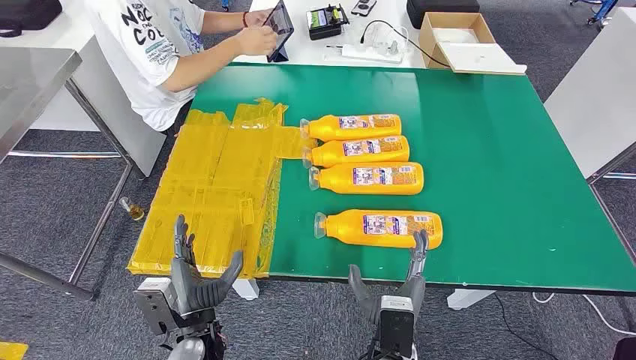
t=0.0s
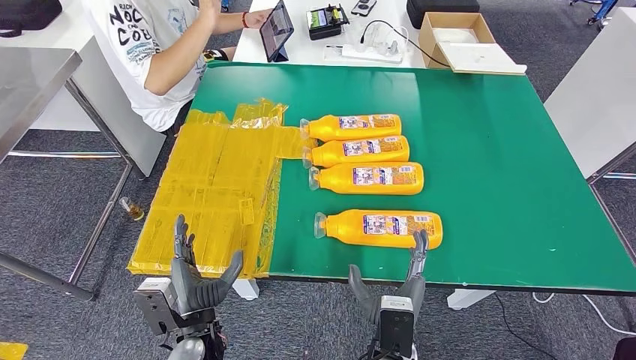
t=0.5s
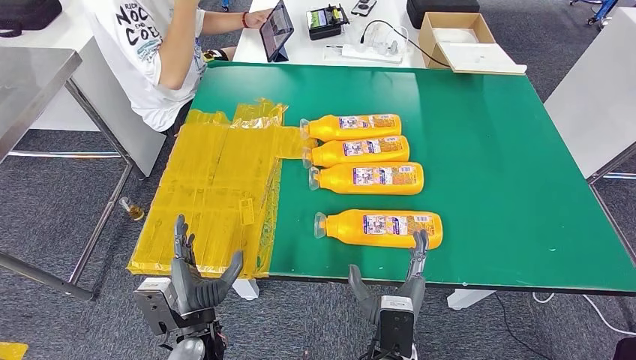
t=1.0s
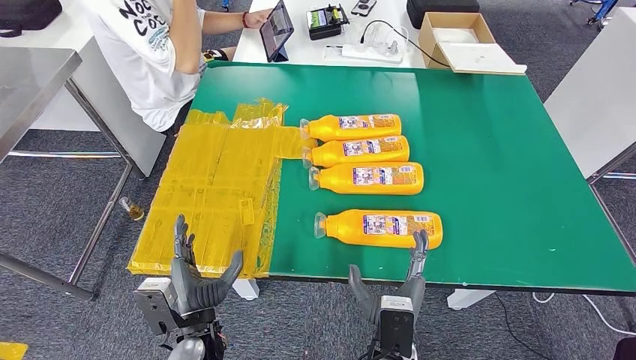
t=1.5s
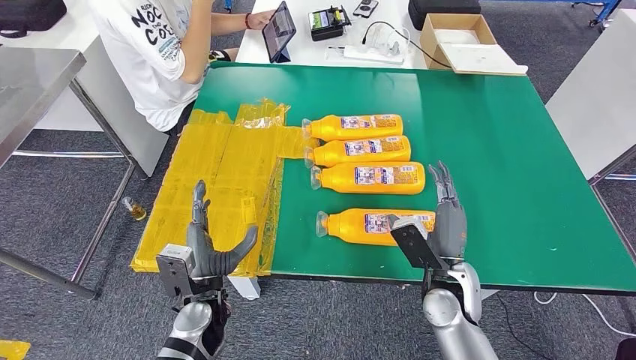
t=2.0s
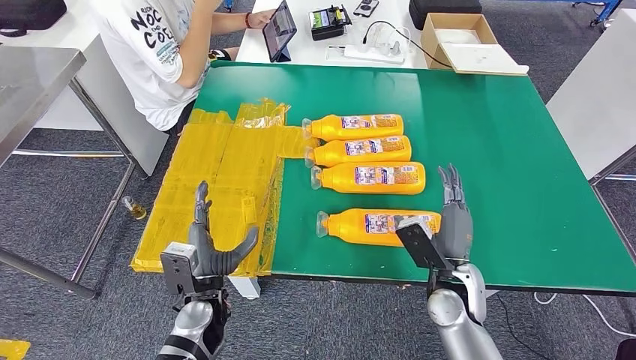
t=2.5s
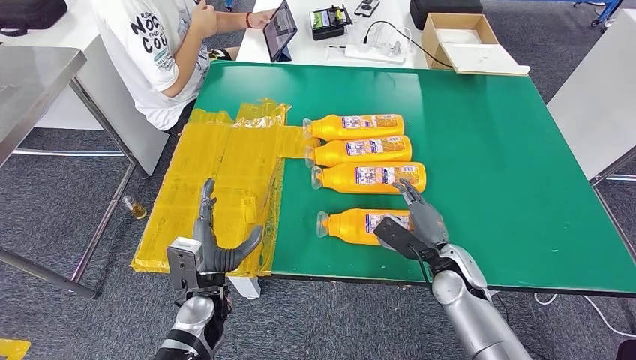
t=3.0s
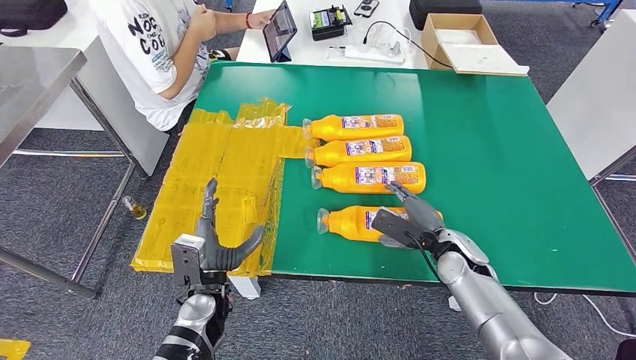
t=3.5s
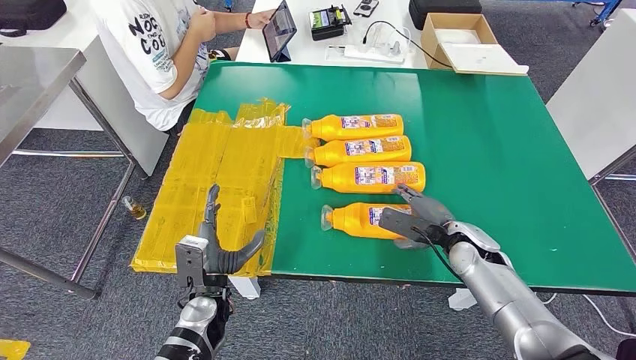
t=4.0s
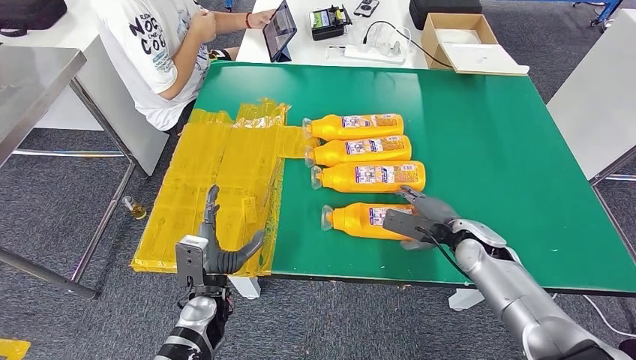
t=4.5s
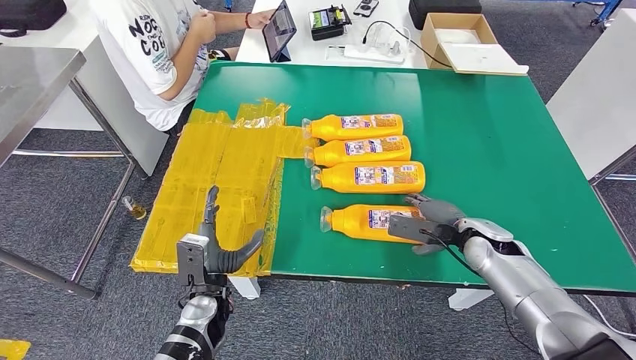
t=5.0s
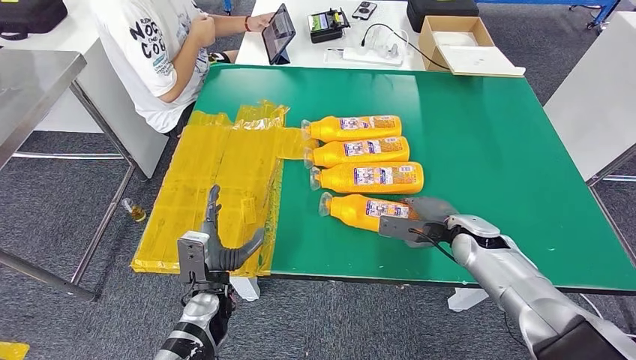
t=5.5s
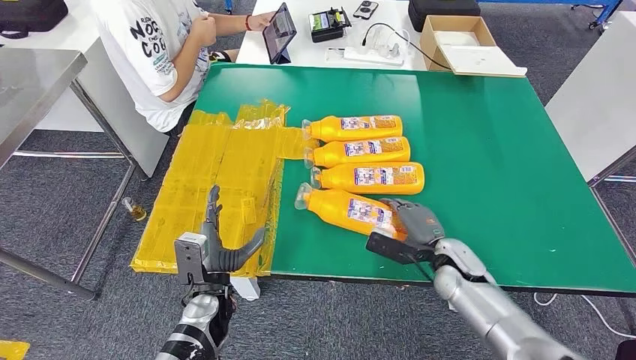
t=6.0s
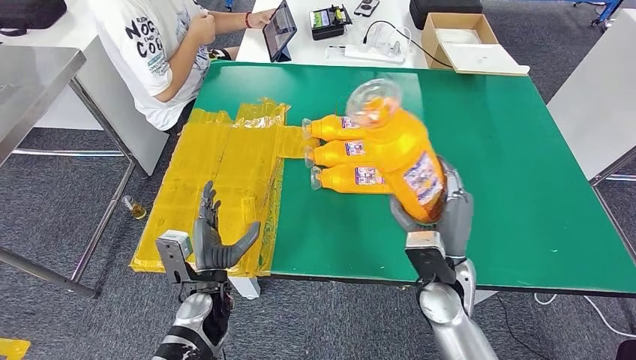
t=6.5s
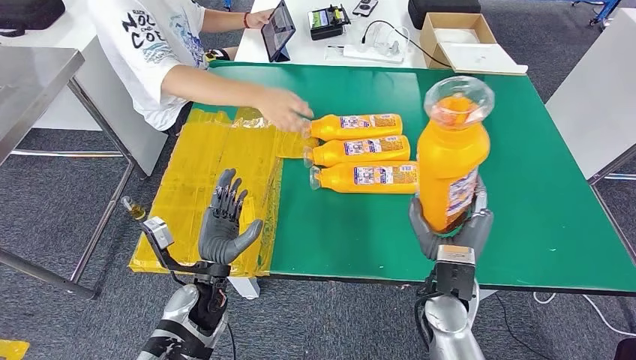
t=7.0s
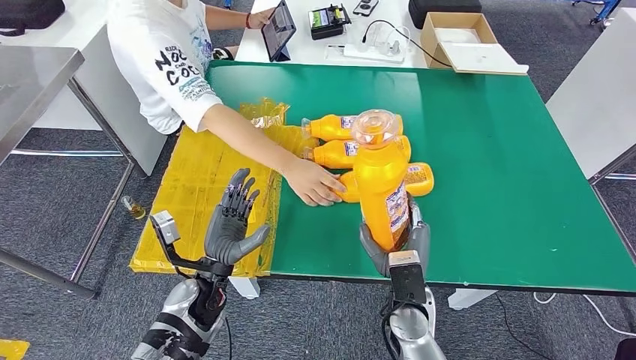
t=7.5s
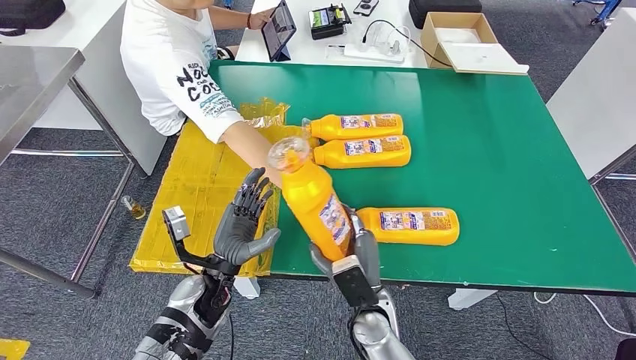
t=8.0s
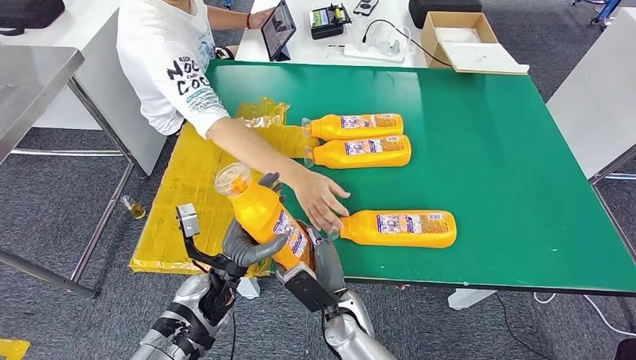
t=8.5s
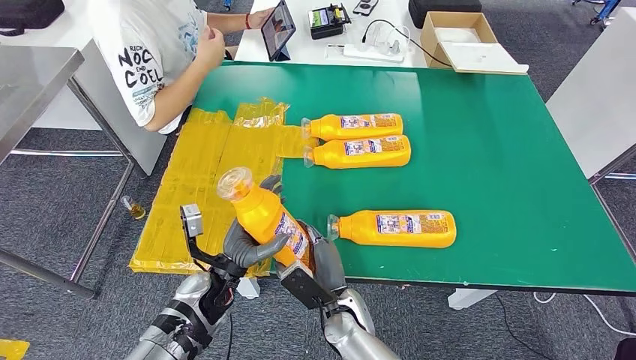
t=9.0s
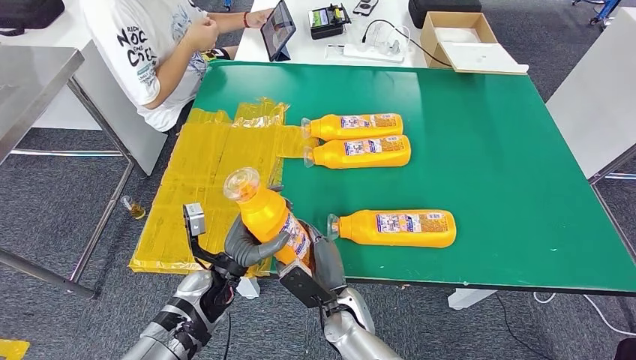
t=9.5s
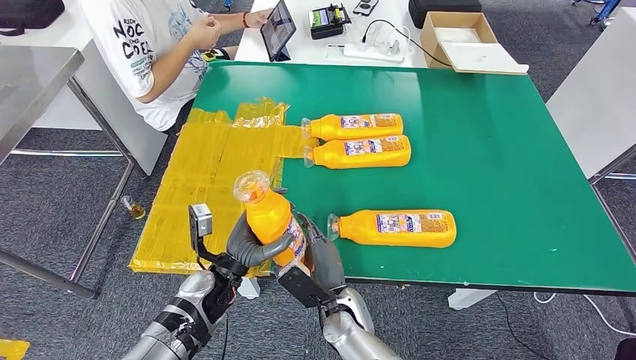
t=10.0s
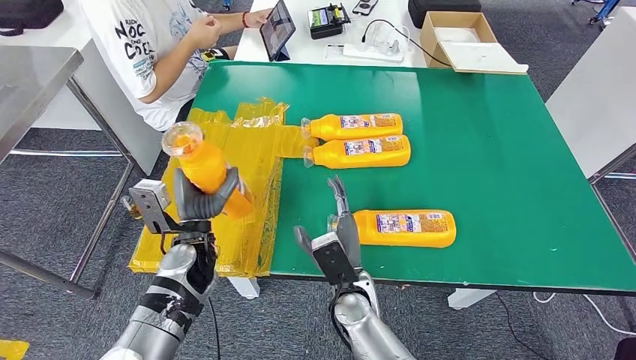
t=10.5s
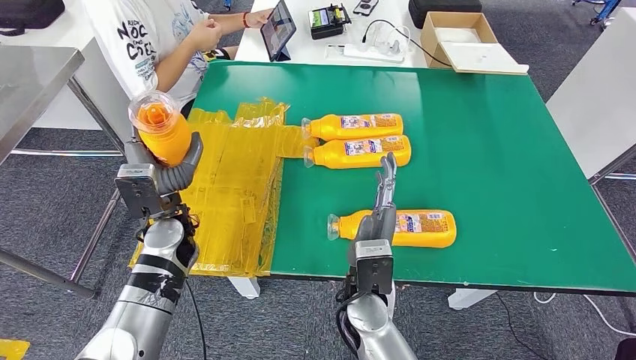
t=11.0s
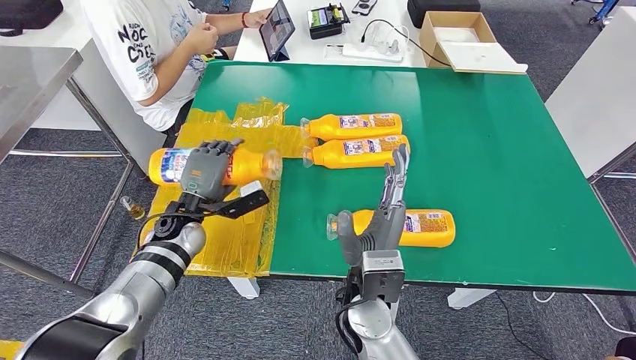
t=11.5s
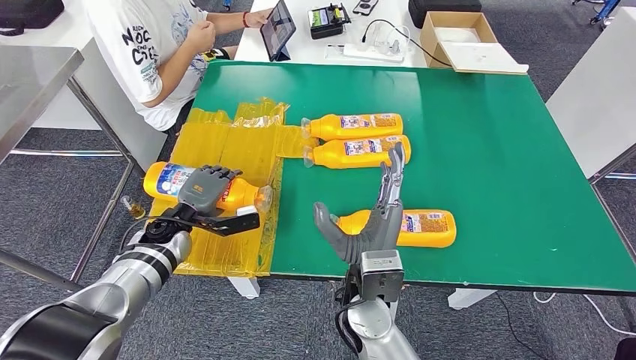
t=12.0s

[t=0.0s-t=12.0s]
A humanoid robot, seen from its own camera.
Step, t=0.0s to t=6.5s: Take the fast-moving consumer goods bottle from the table.
t=2.0s to t=4.0s: The right hand heads forward and to the right, covering approximately 10 cm.
t=4.0s to t=6.0s: The right hand changes place by approximately 5 cm.
t=8.0s to t=10.0s: The right hand ends up some 5 cm from where it was.
t=10.0s to t=12.0s: The left hand shifts approximately 15 cm to the left and forward. Meanwhile the right hand moves upward, some 15 cm.

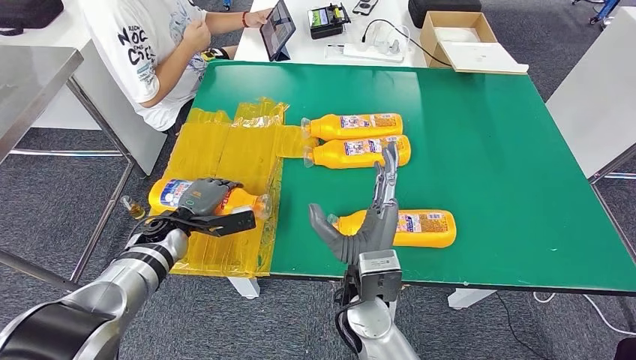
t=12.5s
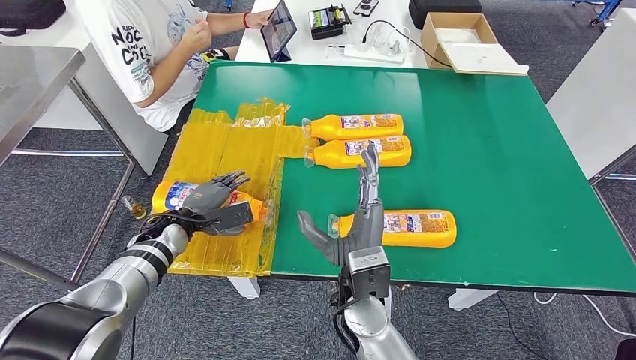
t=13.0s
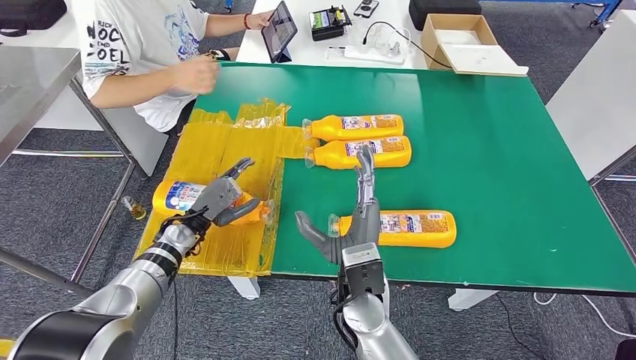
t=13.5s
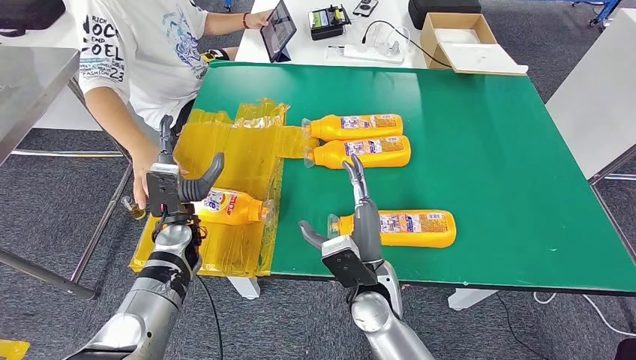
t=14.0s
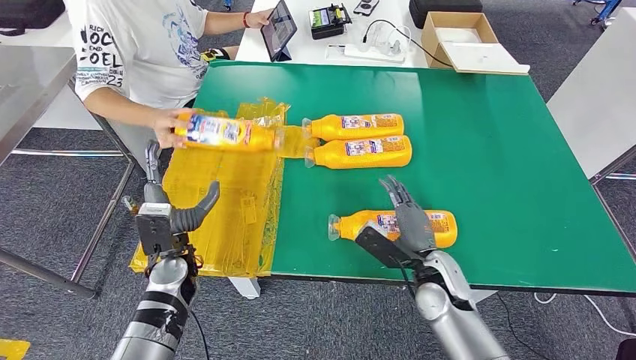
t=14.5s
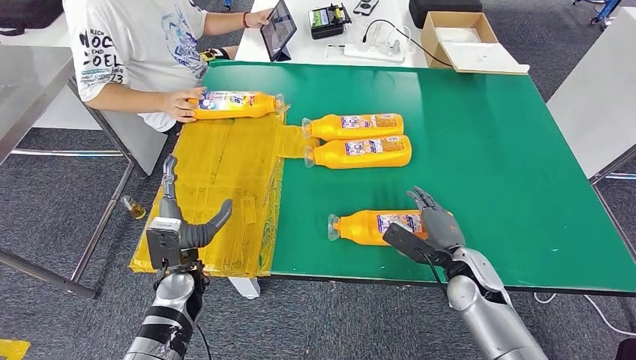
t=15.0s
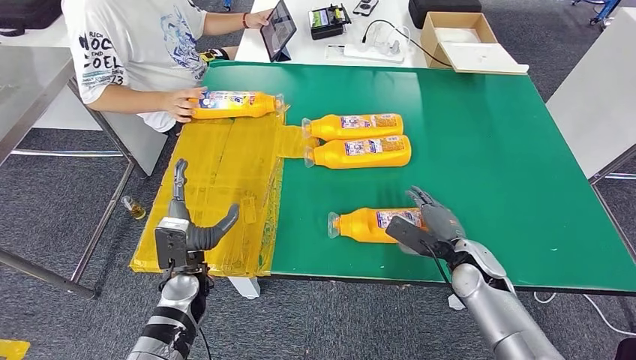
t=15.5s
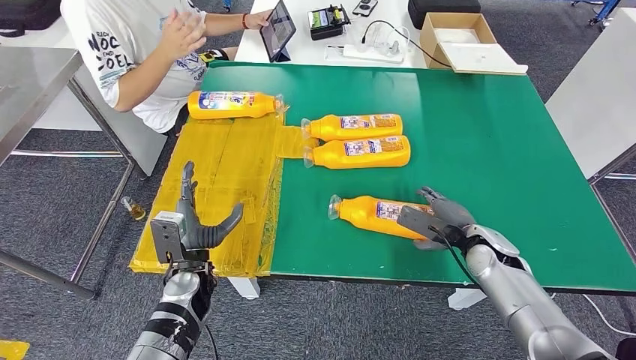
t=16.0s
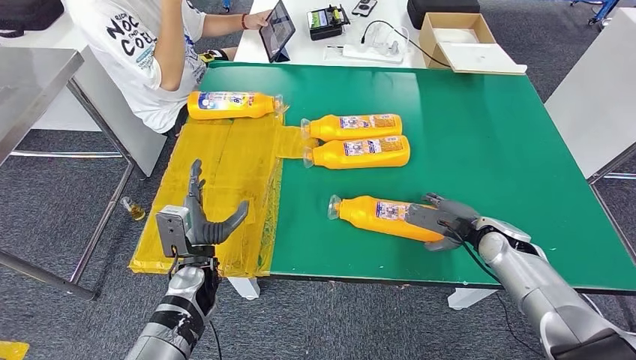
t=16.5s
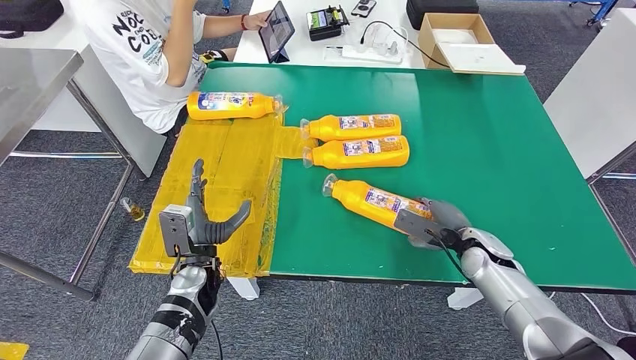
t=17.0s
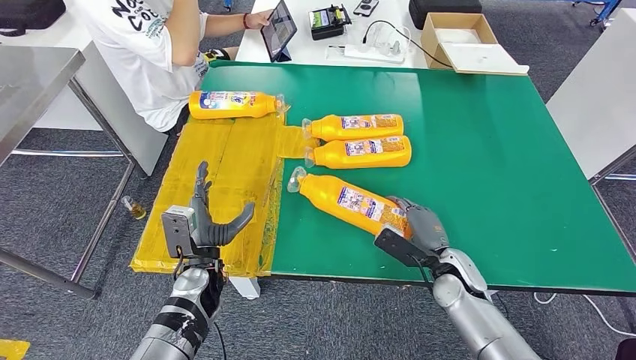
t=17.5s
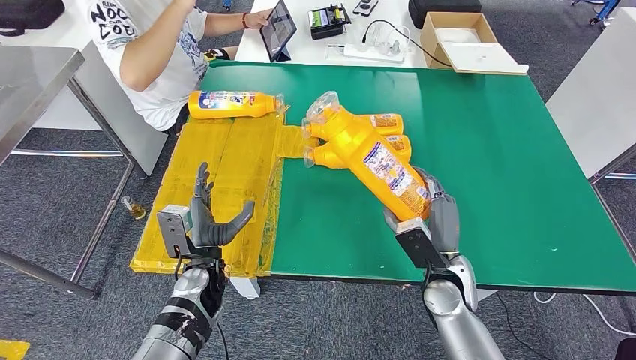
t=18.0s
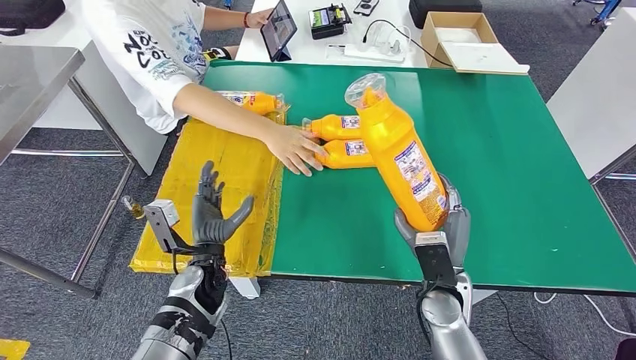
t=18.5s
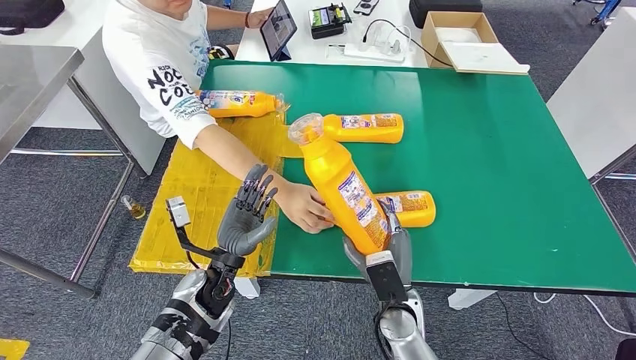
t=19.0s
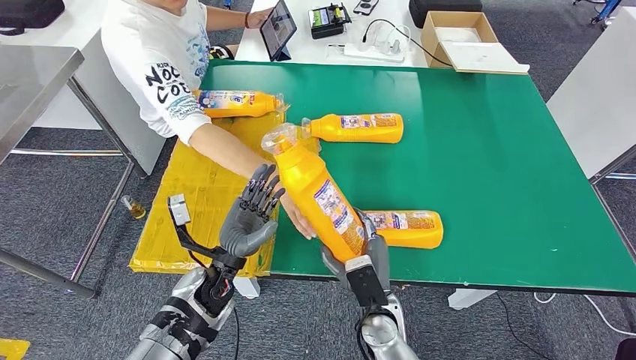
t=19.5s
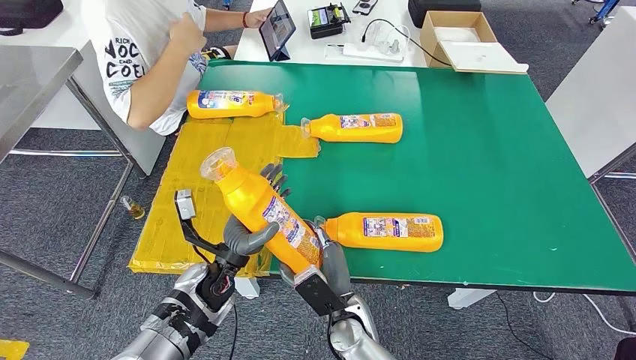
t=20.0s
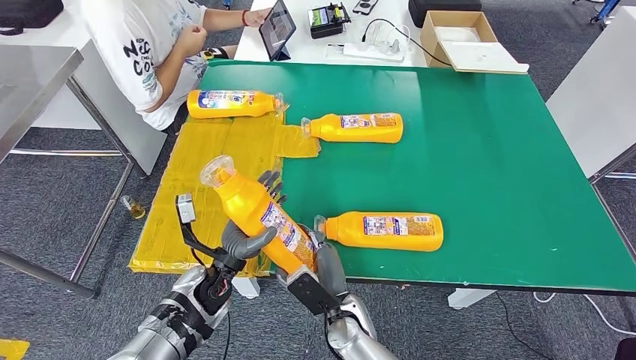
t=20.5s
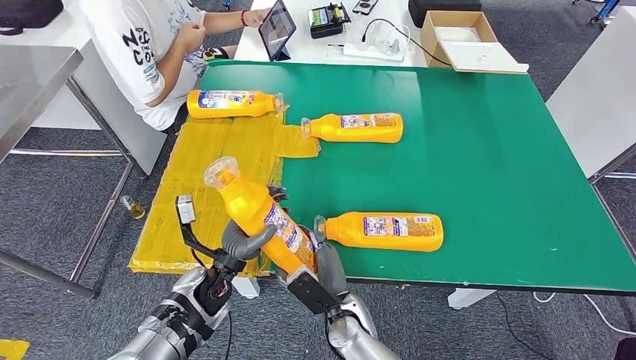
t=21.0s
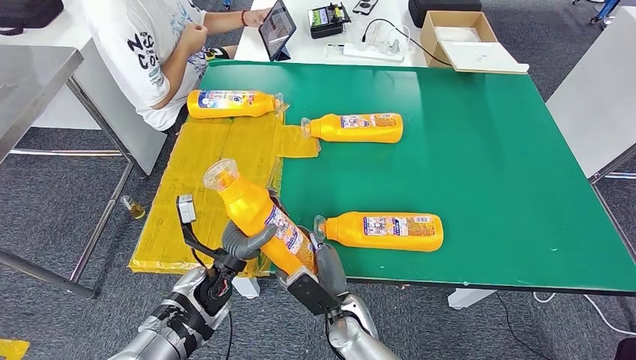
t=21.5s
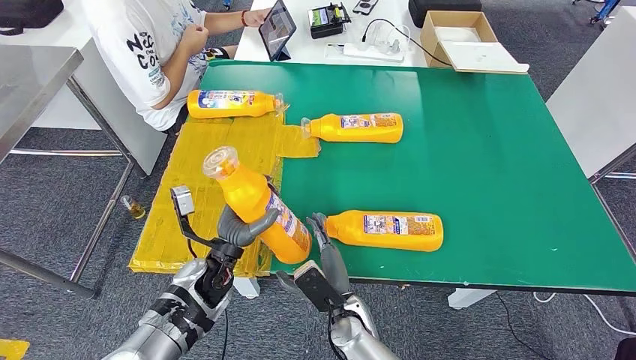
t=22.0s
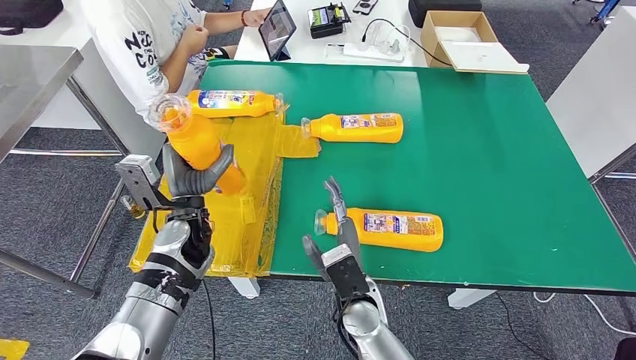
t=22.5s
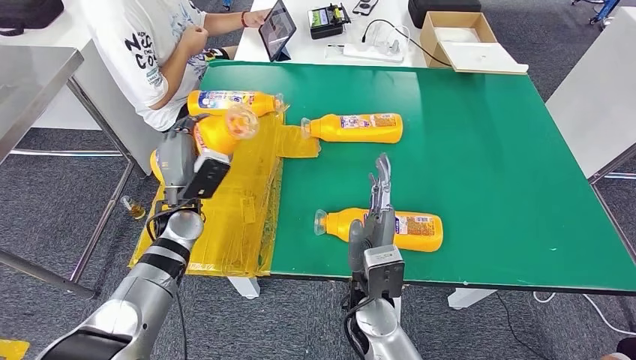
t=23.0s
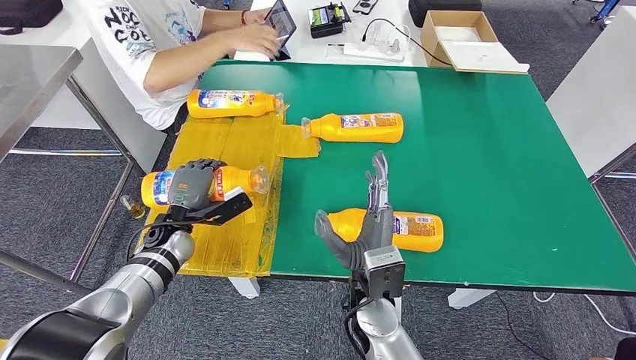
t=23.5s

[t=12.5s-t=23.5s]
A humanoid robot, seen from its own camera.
Step, t=14.5s to t=17.5s: Pick up the fast-moving consumer goods bottle from the table.
t=16.0s to t=18.0s: The right hand travels to the left and backward by about 10 cm.
t=20.0s to t=21.5s: The hands move only a little.
t=21.5s to t=23.5s: The left hand travels to the left and forward by roughly 15 cm, while the right hand goes approximately 10 cm upward.
